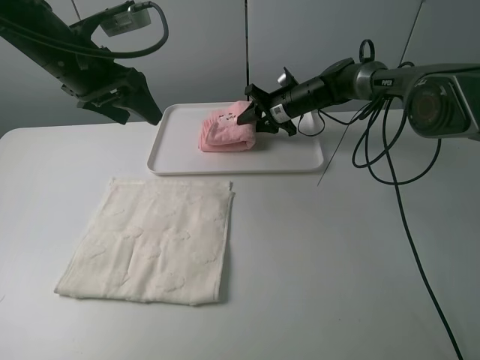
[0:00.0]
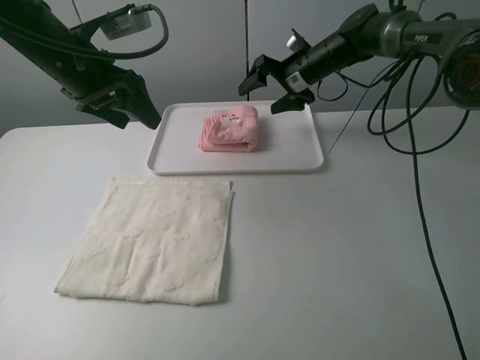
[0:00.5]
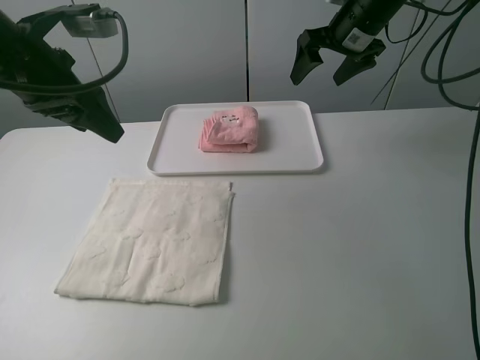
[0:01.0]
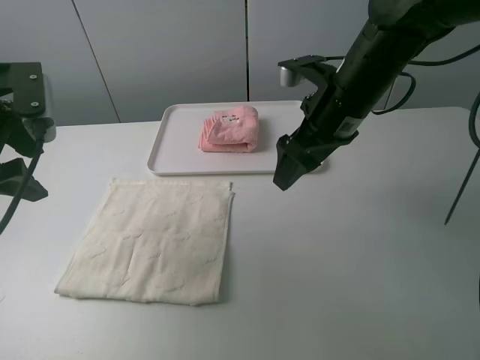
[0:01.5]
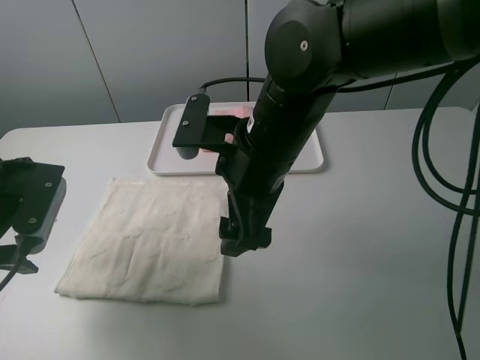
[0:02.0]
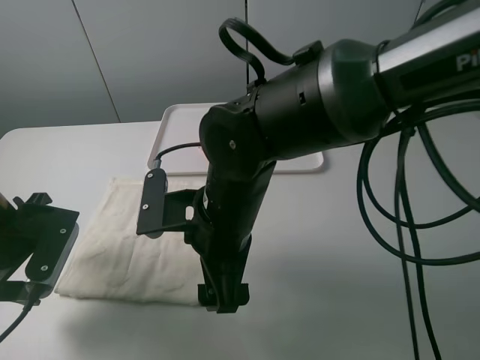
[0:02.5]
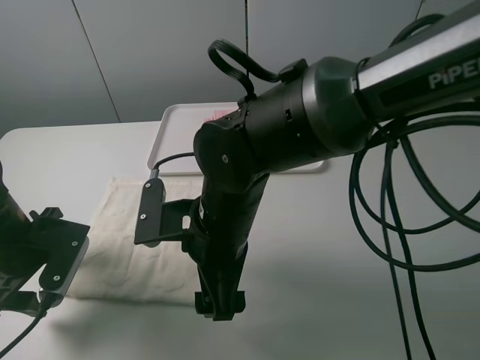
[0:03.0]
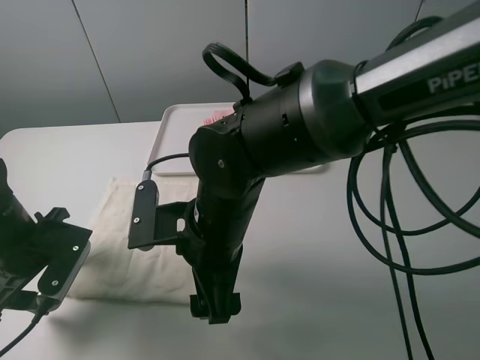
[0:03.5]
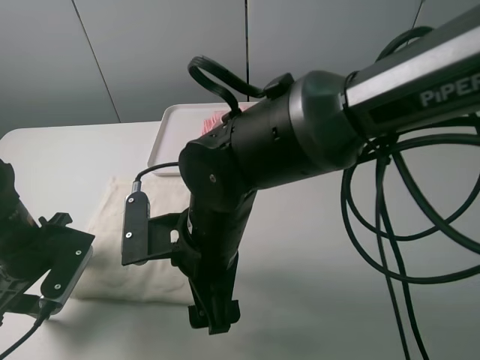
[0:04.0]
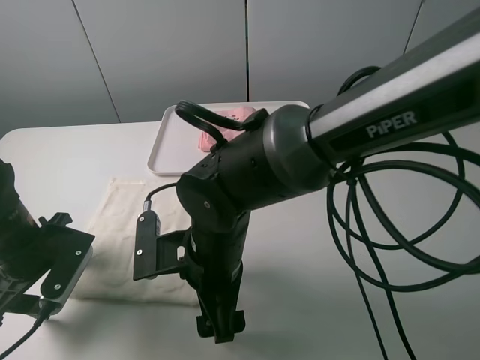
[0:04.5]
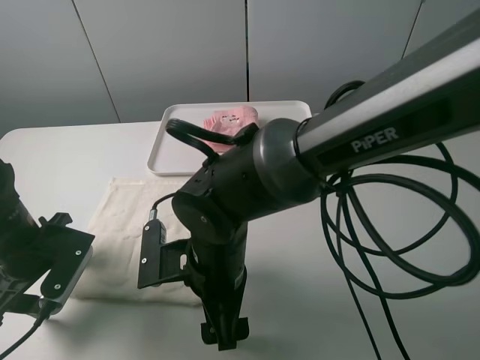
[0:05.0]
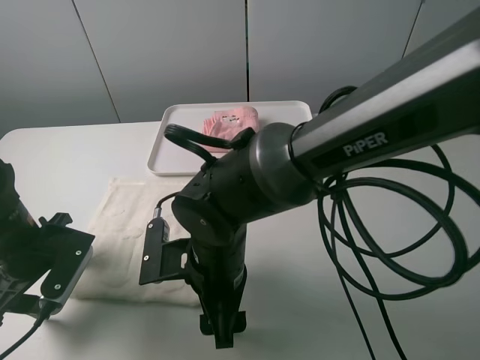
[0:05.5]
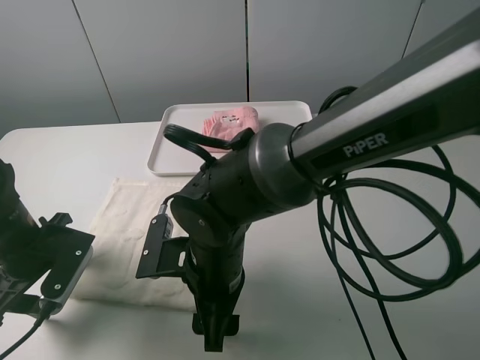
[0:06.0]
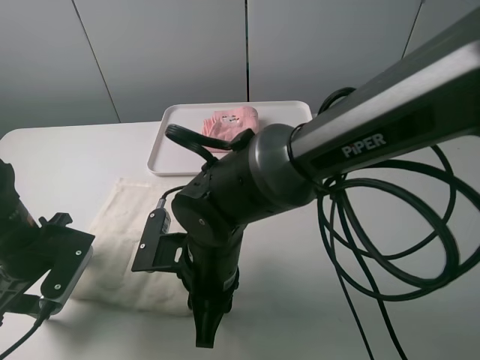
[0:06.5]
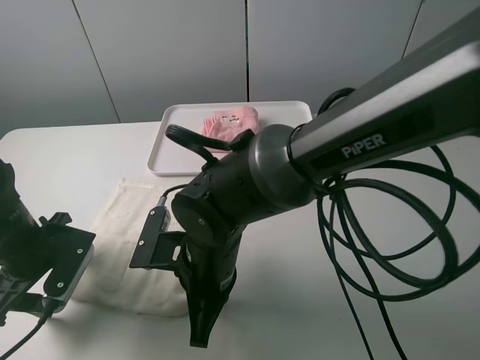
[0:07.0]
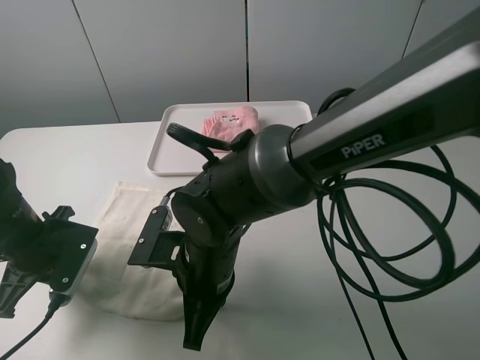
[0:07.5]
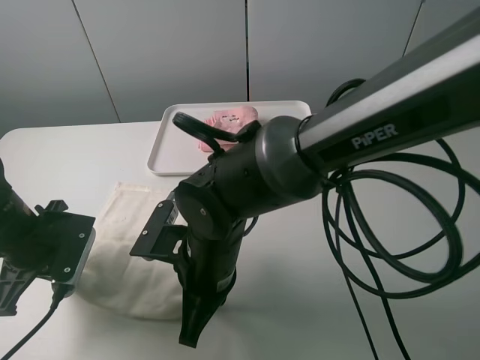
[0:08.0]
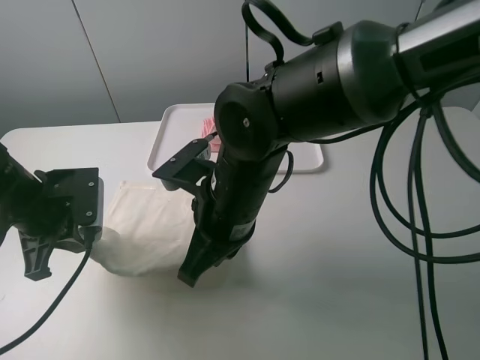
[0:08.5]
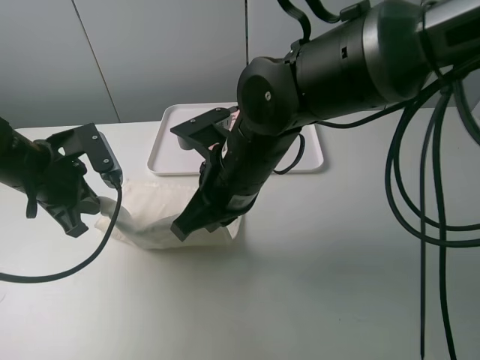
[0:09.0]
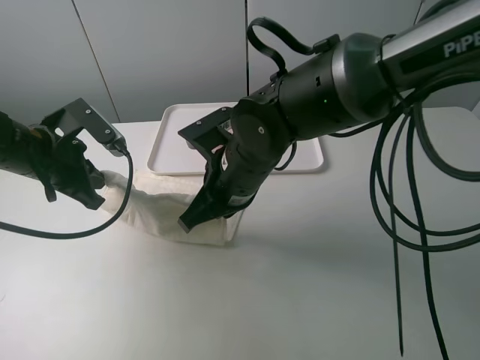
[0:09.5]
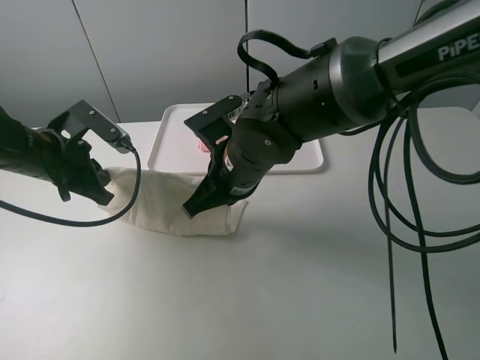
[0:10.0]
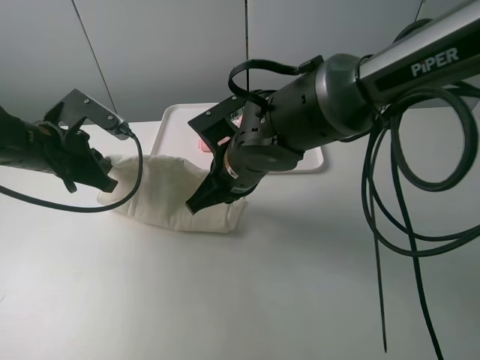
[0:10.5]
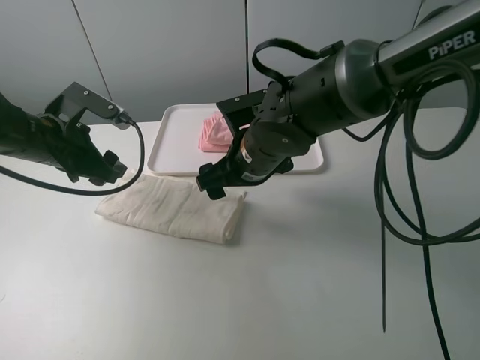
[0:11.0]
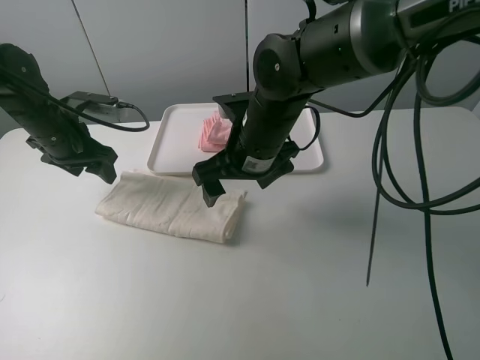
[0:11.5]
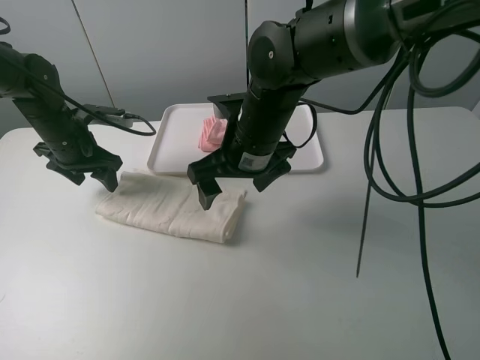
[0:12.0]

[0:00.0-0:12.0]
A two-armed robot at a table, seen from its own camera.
Task of the whole recording: fold one of the towels by two grippers and place it on the tray,then fold another towel by two grippers and place it on the folded towel.
Step, 0:00.5 to 0:07.0: Grasp the white towel with the left gripper.
Step, 0:08.0 to 0:10.5: Fold the white towel upwards with the left gripper.
0:00.0 to 0:02.0: The left gripper travels backward, downward and to the left by approximately 20 cm; the right gripper heads backward and upward, covering some 35 cm, and opens its fingers.
0:02.0 to 0:04.0: The right gripper goes roughly 10 cm downward and to the left, while the left gripper is displaced downward by roughly 10 cm.
0:06.0 to 0:08.0: The right gripper closes, while the left gripper closes.
0:08.0 to 0:10.0: Both grippers move forward, some 10 cm.
0:10.0 to 0:12.0: The left gripper travels forward by about 10 cm, and opens up; the right gripper opens its fingers.

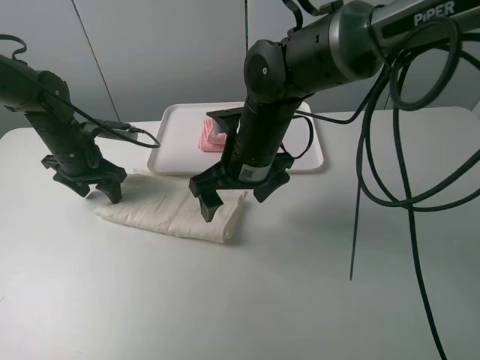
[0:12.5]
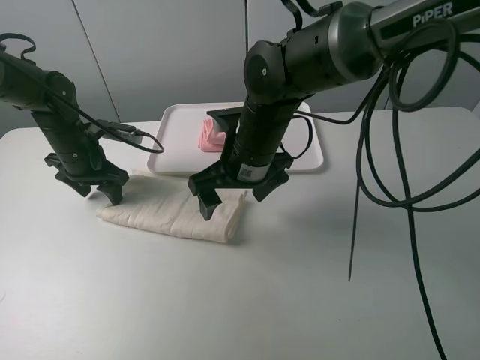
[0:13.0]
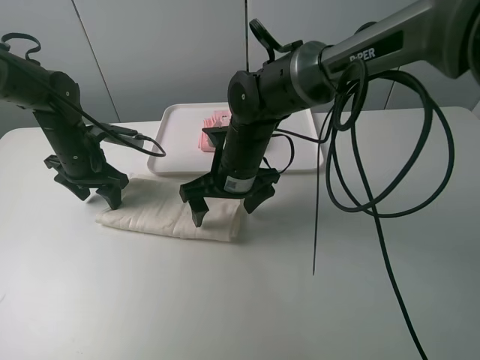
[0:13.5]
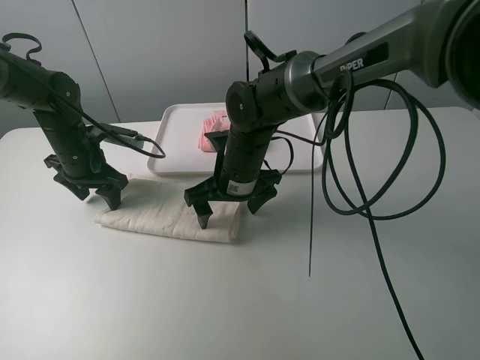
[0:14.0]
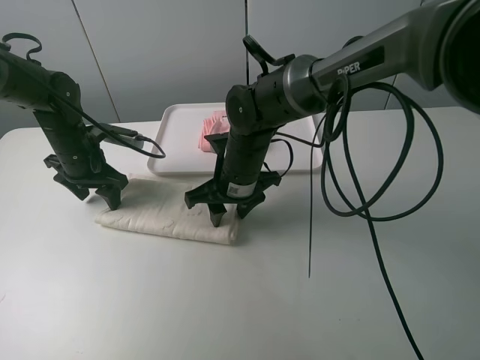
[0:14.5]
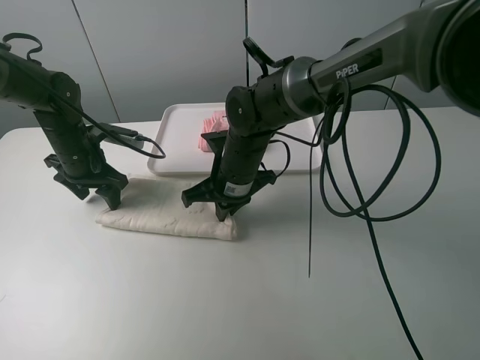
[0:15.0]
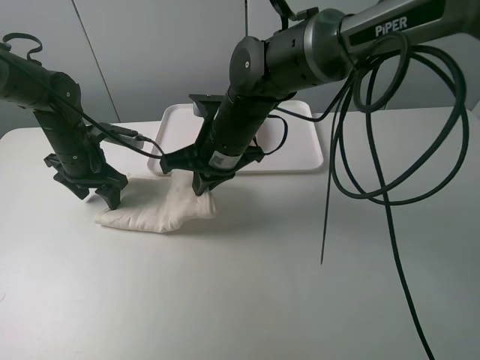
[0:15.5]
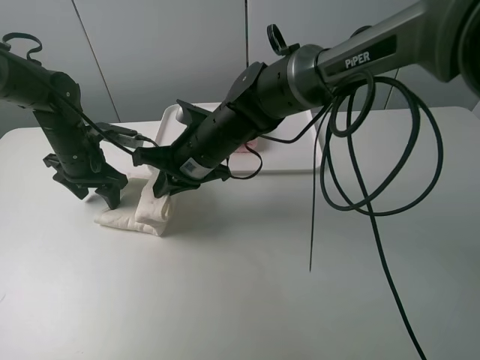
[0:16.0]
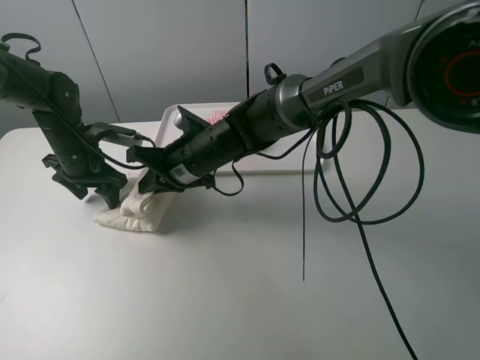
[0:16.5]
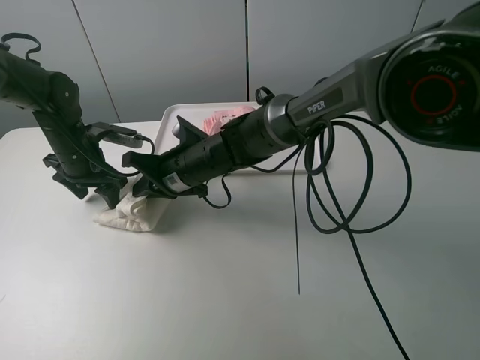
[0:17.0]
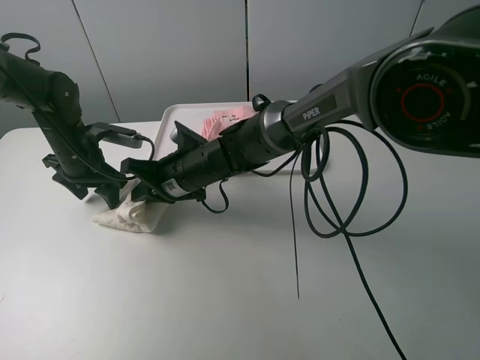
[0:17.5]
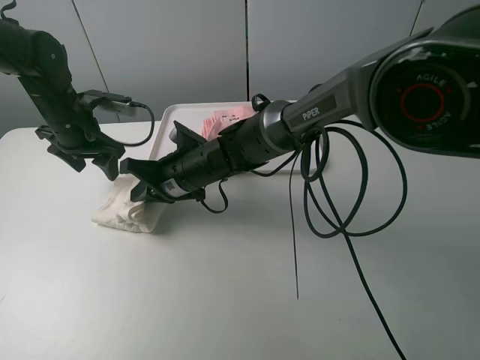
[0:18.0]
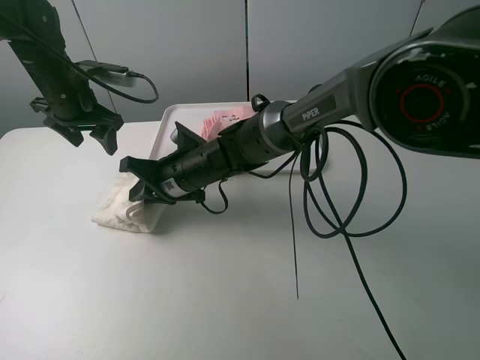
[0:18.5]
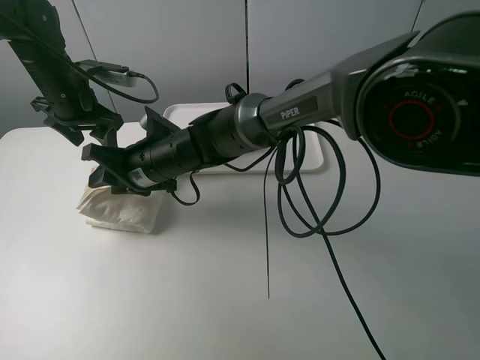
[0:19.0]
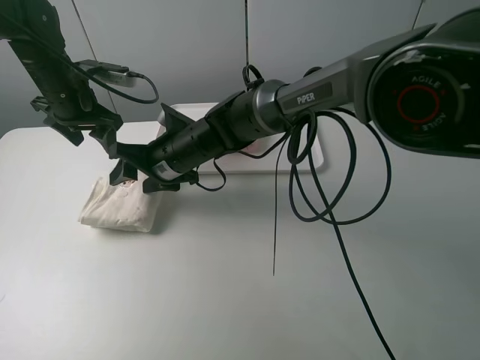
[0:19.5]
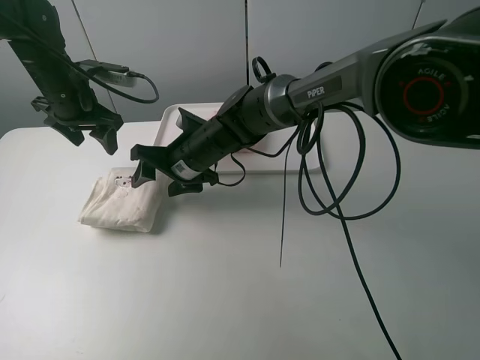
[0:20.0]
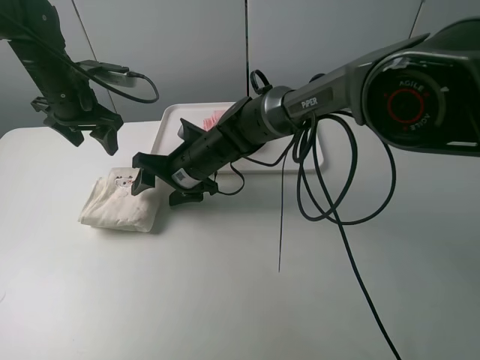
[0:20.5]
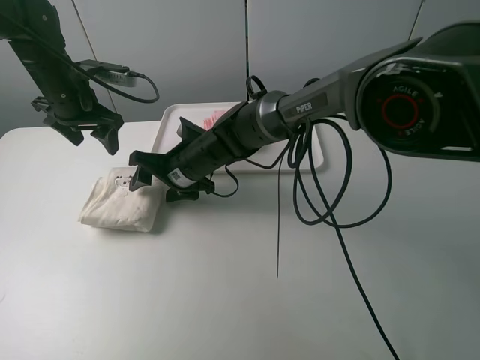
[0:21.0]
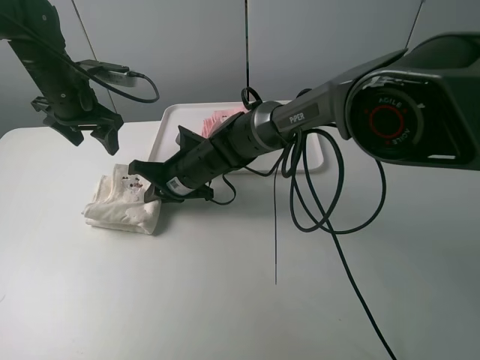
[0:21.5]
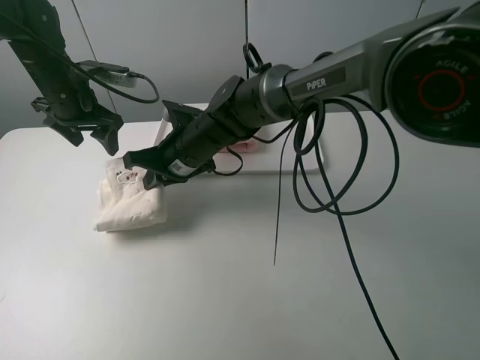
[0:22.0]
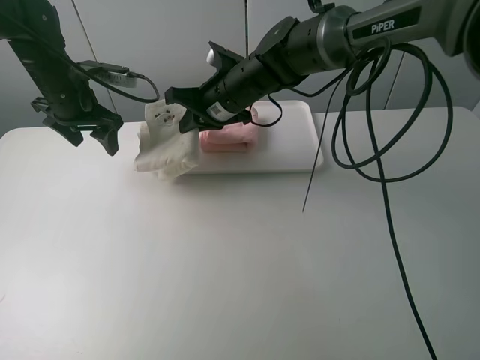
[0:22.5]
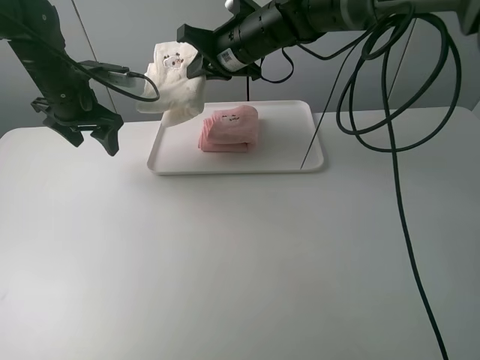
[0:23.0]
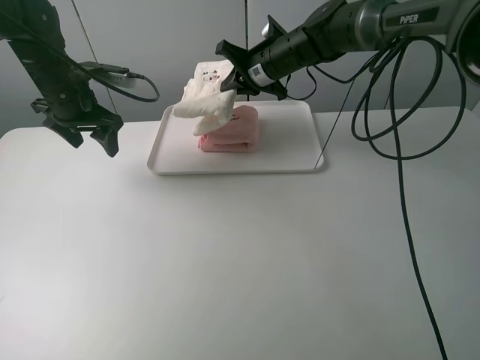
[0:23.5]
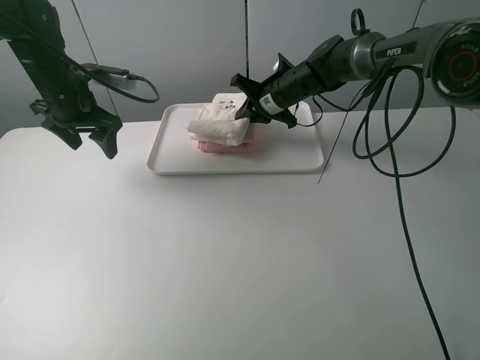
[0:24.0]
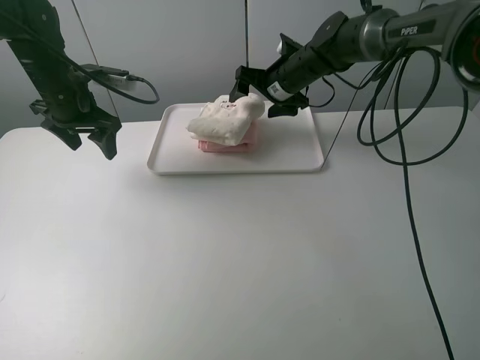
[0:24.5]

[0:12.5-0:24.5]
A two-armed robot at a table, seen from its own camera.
Task of the whole recording: fold one of the towels by two grippers and place it on the tray,then fold another towel by two grippers and place it on the folded towel.
Step, 0:13.0 to 0:14.5: Grasp the white towel with the right gripper.
Step, 0:15.0 to 0:19.0: Fold the white towel from right to left with right gripper.
Step, 0:19.5 to 0:21.5: Grasp the white towel with the right gripper.
0:12.5 to 0:14.5: The right gripper shifts roughly 5 cm downward, and closes up.
0:14.5 to 0:16.5: The right gripper heads to the left, covering approximately 5 cm, and closes.
0:16.5 to 0:18.5: The left gripper is displaced upward by roughly 10 cm.
0:18.5 to 0:20.5: The right gripper opens up.
0:20.5 to 0:22.5: The right gripper goes roughly 15 cm upward, to the right and forward, and closes up.
0:22.5 to 0:24.5: The right gripper moves up and down over roughly 10 cm, changing direction 2 times, and opens up.

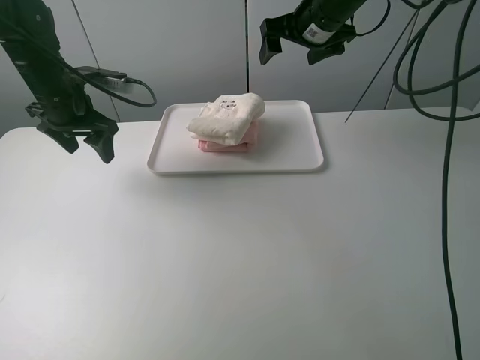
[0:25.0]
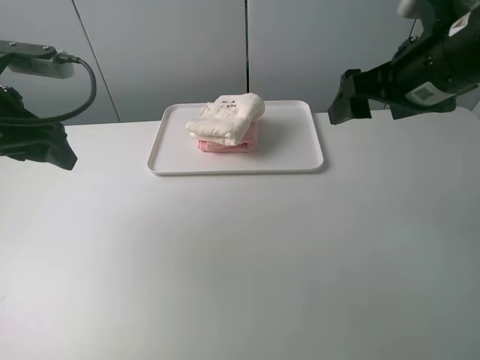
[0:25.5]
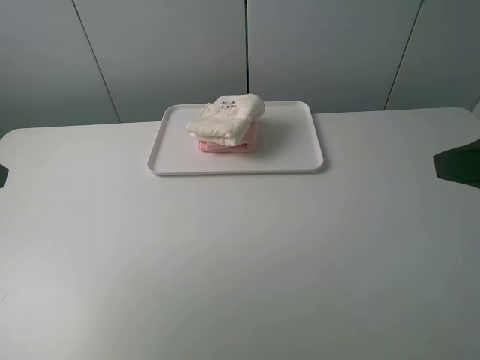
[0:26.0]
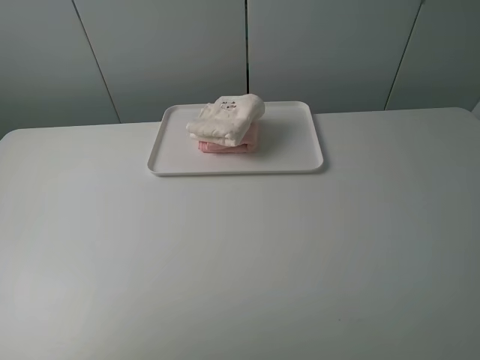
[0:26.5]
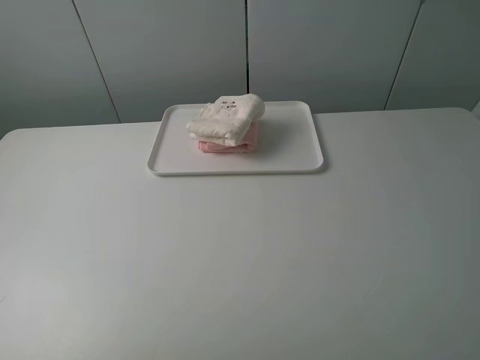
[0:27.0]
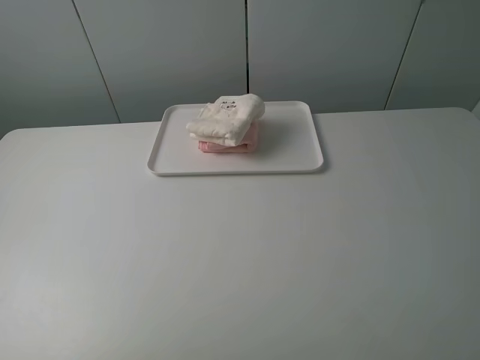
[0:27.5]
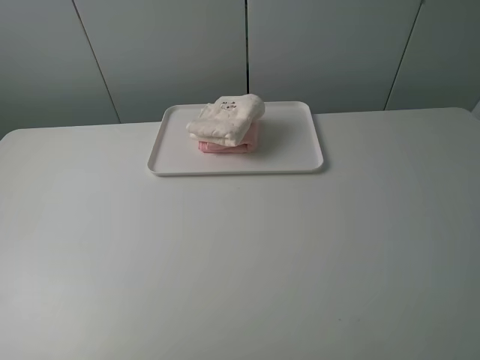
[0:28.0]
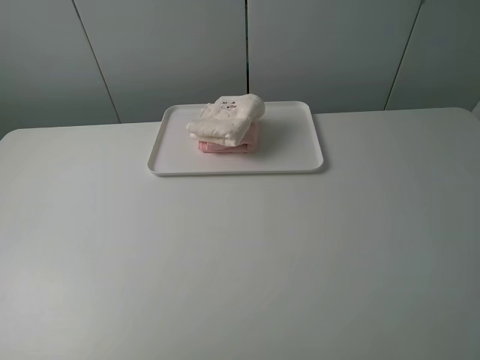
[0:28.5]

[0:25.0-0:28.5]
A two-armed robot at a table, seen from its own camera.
Task of the whole recording: fold one of the towels by two grippers and place it on the tray,then fold another towel by two grippers and place it on the folded towel.
0:25.0 to 0:27.0: The grippers both shift backward by about 40 cm.
